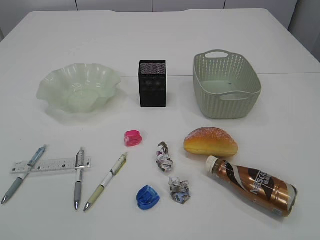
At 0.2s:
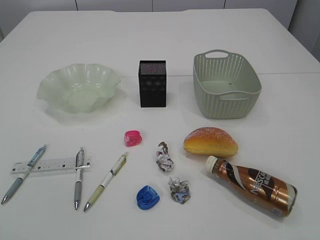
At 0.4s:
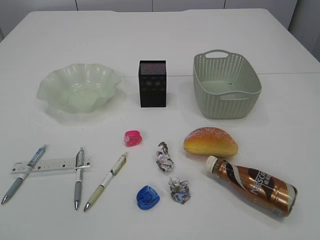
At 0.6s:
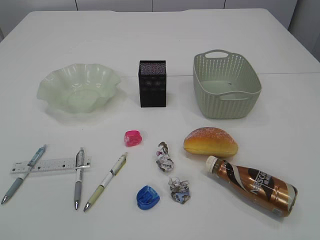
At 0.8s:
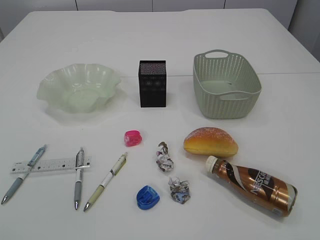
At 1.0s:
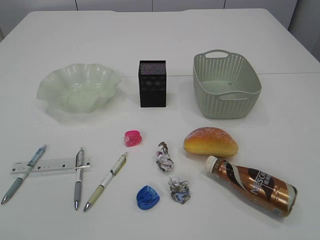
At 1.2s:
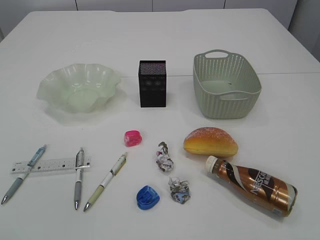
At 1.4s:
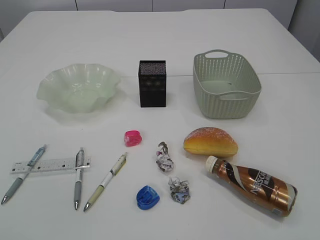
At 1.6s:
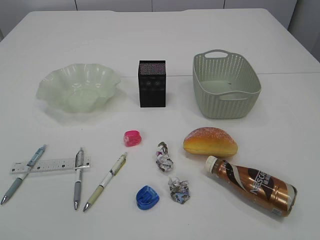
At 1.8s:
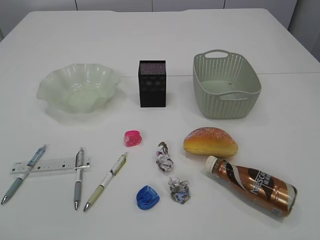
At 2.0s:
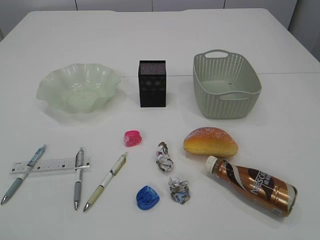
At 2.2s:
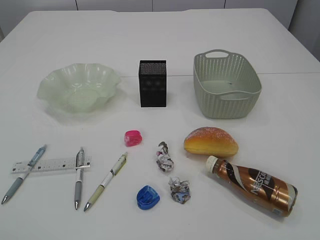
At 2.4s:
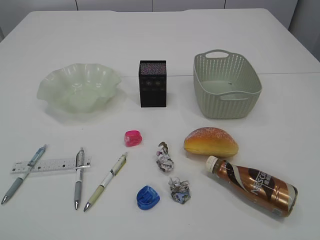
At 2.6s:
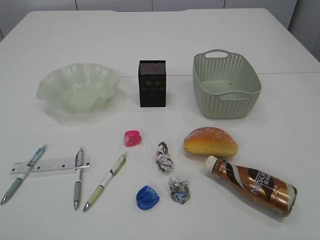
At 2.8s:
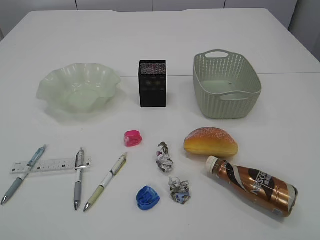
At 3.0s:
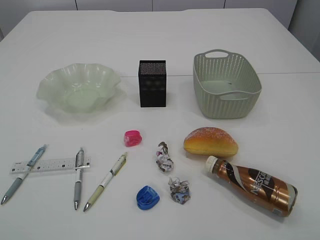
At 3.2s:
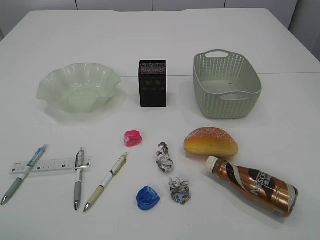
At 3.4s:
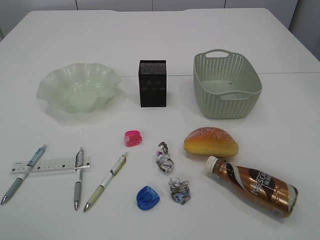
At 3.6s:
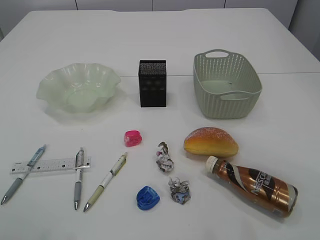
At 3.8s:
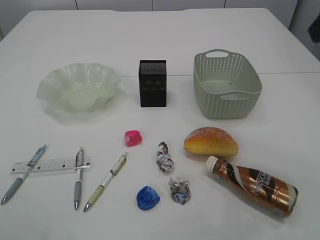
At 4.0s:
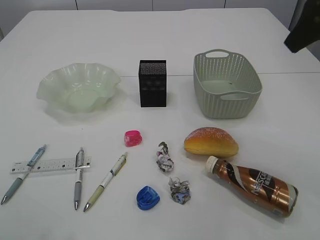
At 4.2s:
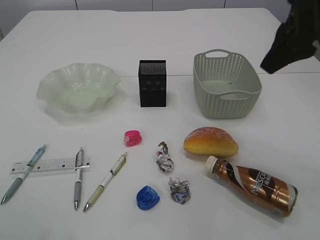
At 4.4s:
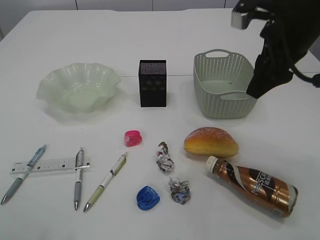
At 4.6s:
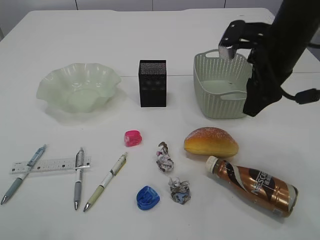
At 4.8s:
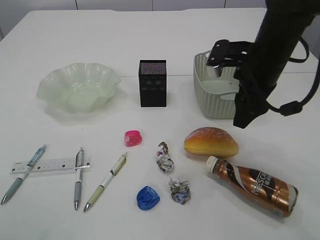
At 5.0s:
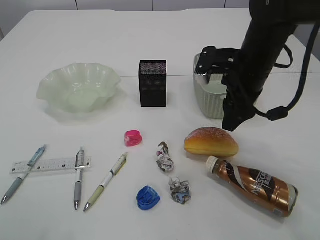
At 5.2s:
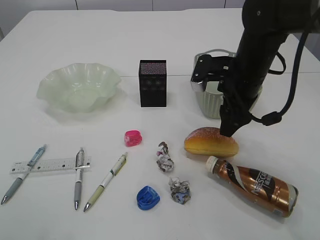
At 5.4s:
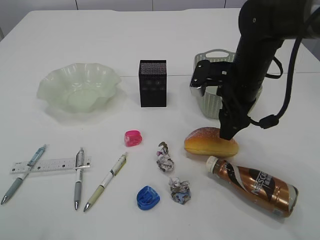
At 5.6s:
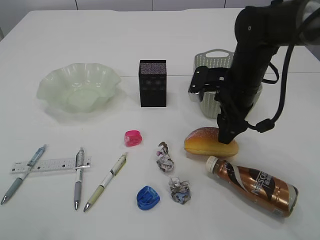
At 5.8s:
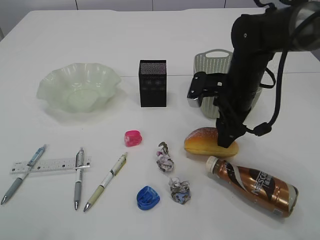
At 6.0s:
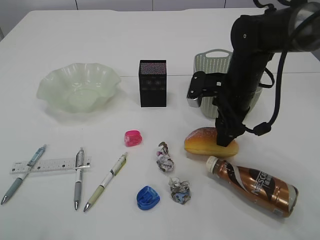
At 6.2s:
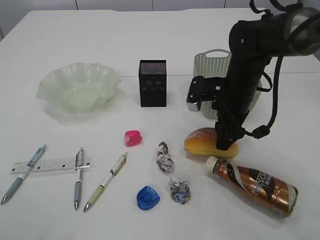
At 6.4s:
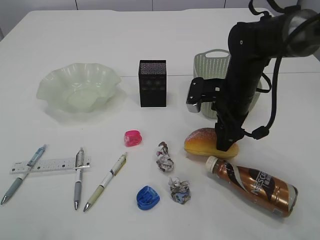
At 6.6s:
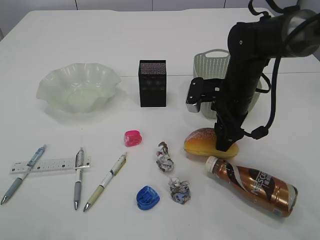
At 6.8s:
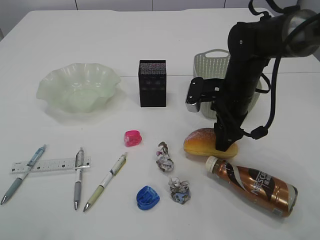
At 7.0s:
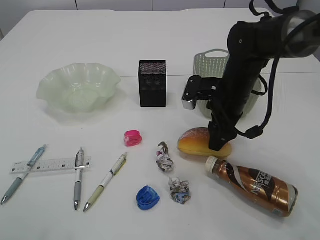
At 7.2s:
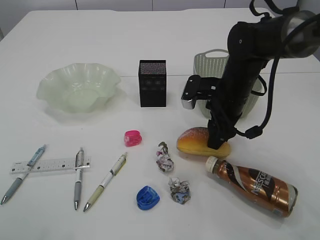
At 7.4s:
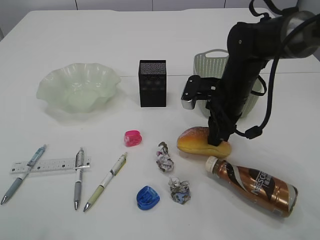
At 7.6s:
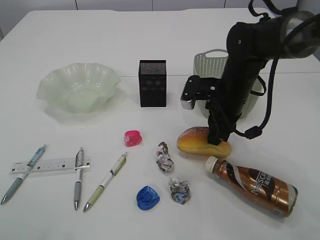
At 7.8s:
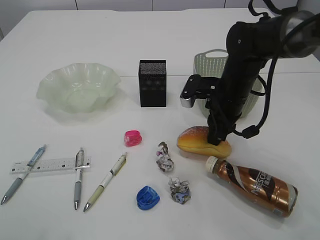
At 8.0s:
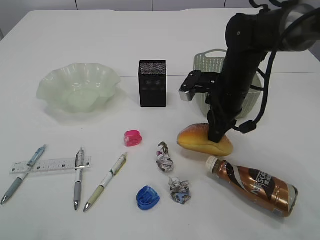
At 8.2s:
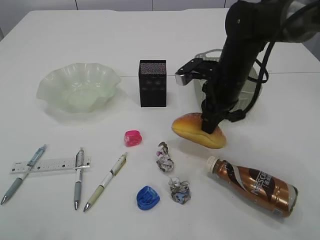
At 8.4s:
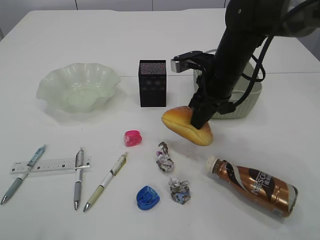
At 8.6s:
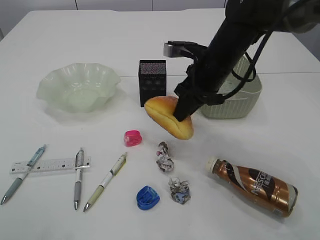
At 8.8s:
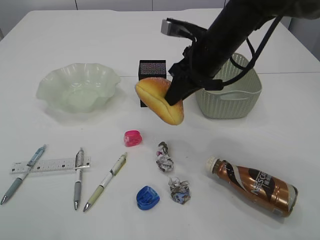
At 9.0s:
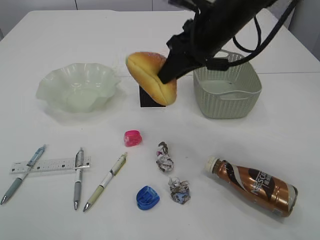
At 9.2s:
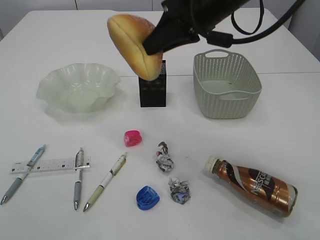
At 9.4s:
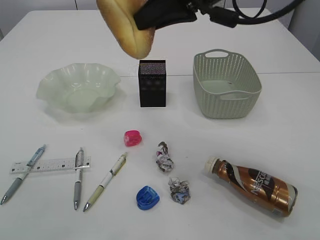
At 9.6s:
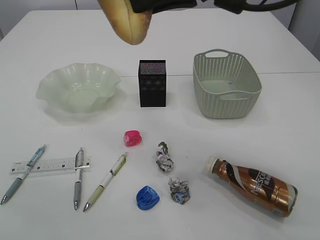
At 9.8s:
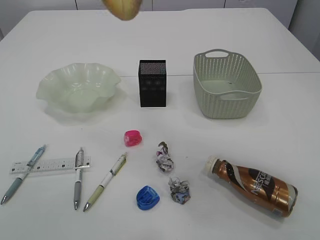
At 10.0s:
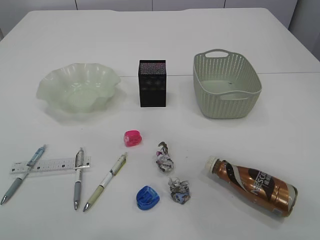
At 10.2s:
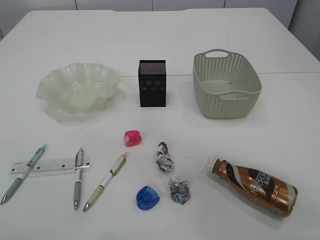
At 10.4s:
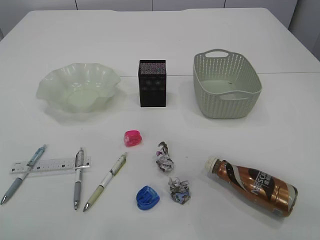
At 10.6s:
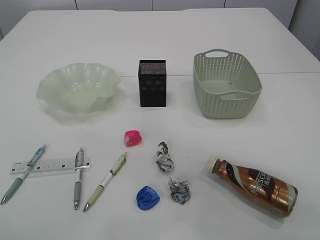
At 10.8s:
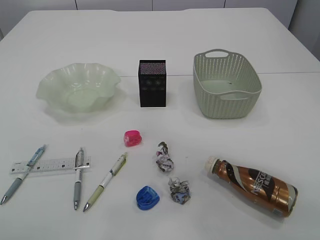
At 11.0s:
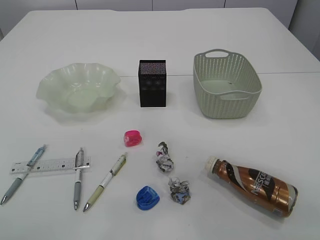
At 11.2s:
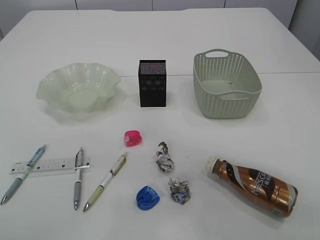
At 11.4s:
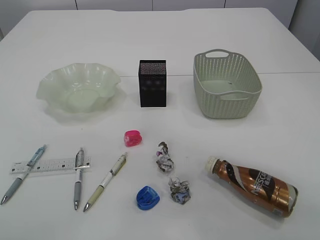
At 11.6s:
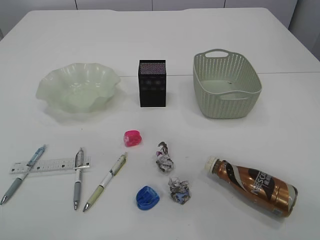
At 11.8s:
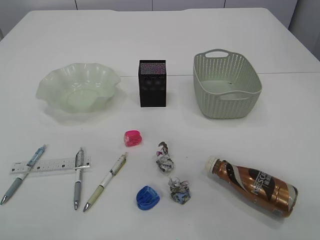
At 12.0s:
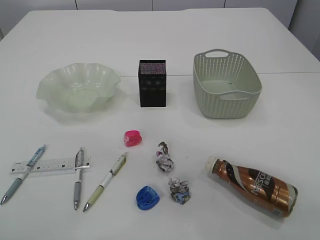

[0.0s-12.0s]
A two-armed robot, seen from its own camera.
3.0s to 4.4s: The right gripper heads forward, covering approximately 25 cm.
4.4s to 6.0s: The right gripper goes approximately 15 cm downward.
6.0s to 7.6s: The right gripper closes up.
7.6s to 9.0s: The right gripper moves upward, about 15 cm.
9.0s to 10.4s: The right gripper shifts approximately 20 cm upward and backward; the left gripper shifts by some 5 cm, and opens up.

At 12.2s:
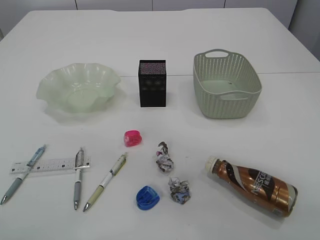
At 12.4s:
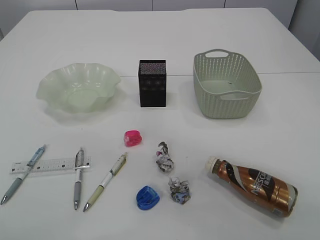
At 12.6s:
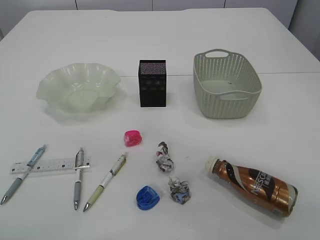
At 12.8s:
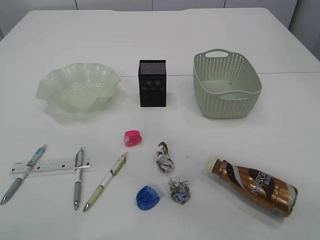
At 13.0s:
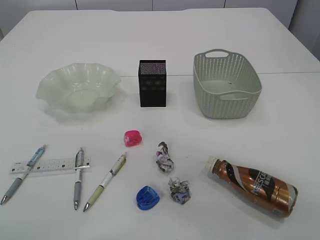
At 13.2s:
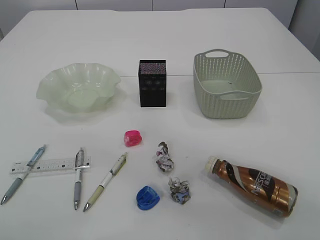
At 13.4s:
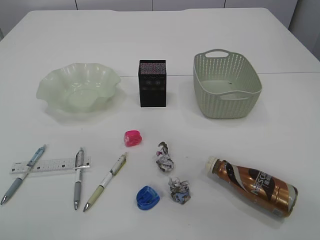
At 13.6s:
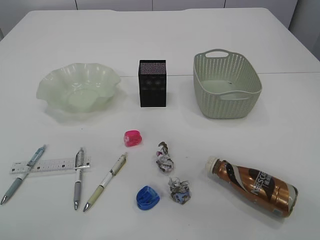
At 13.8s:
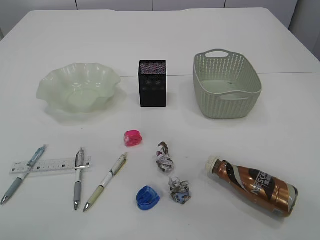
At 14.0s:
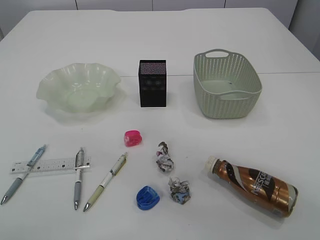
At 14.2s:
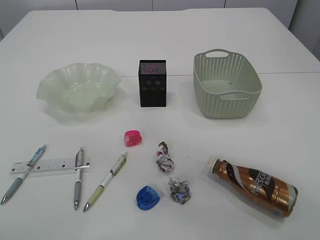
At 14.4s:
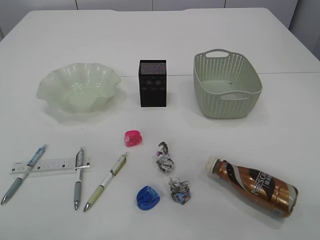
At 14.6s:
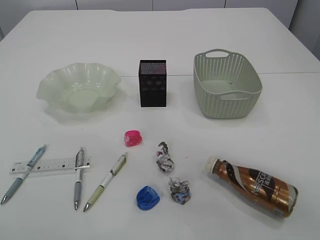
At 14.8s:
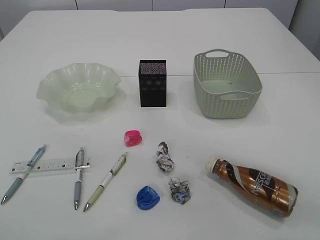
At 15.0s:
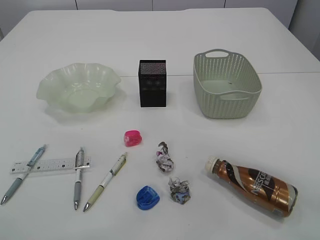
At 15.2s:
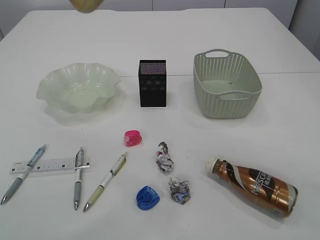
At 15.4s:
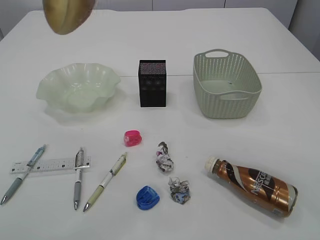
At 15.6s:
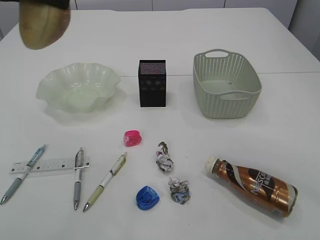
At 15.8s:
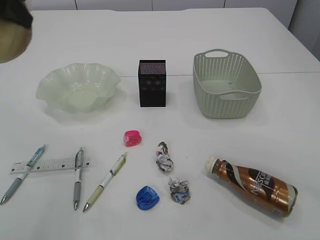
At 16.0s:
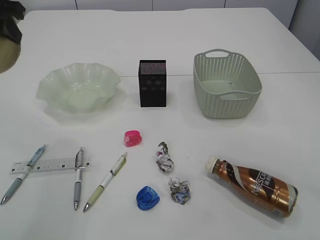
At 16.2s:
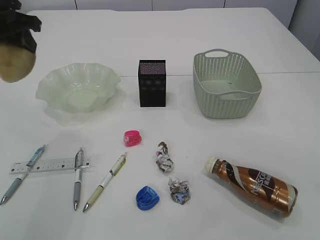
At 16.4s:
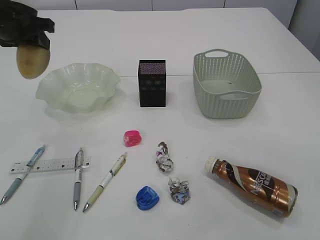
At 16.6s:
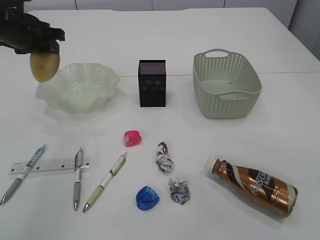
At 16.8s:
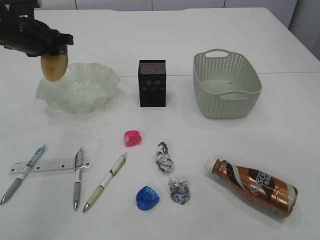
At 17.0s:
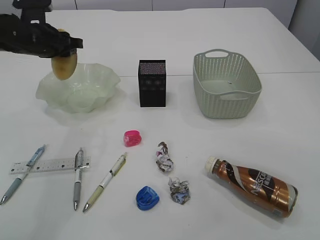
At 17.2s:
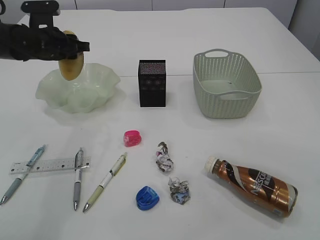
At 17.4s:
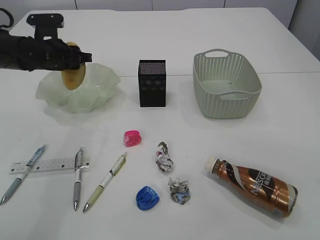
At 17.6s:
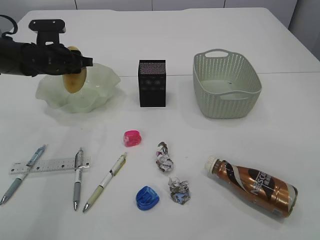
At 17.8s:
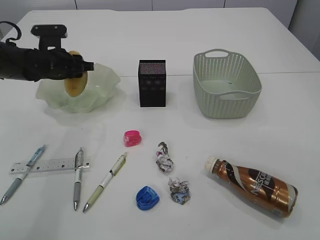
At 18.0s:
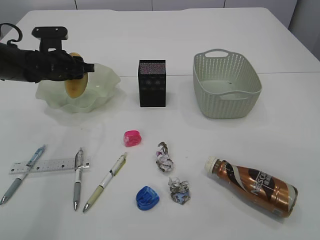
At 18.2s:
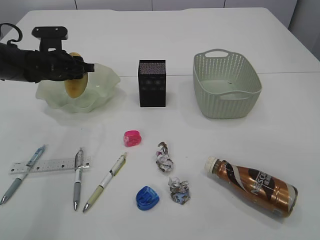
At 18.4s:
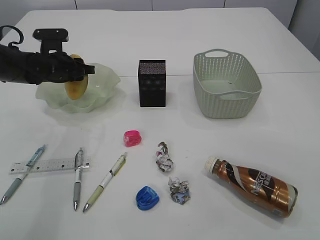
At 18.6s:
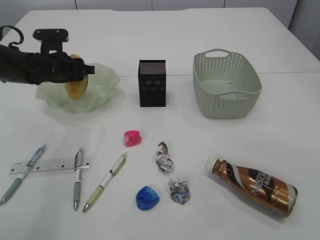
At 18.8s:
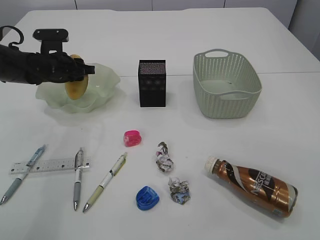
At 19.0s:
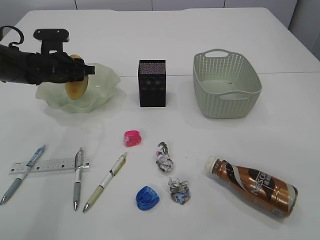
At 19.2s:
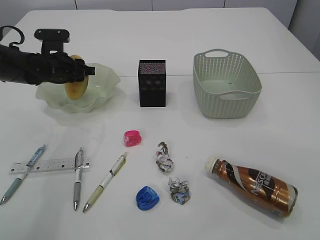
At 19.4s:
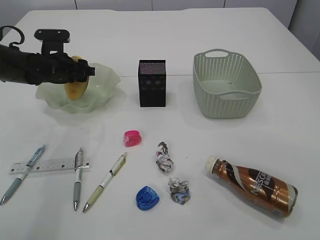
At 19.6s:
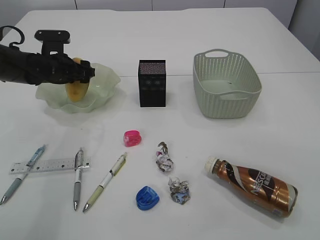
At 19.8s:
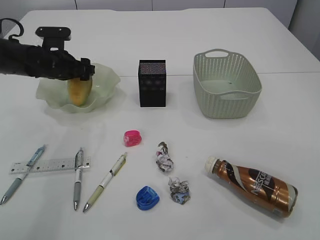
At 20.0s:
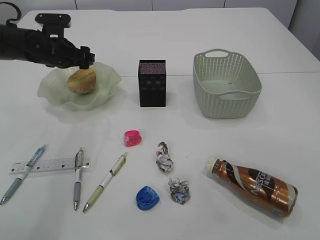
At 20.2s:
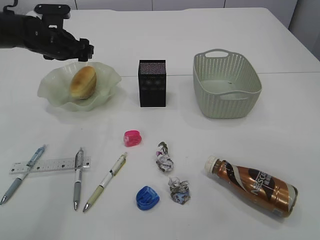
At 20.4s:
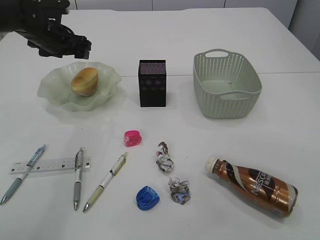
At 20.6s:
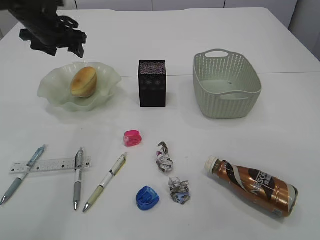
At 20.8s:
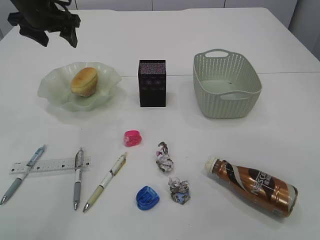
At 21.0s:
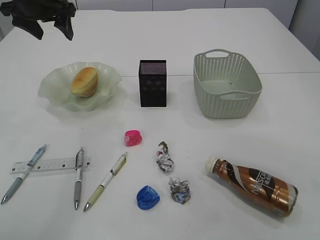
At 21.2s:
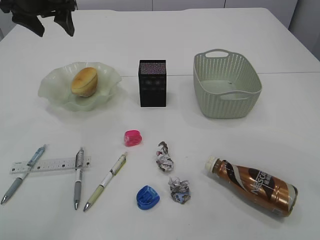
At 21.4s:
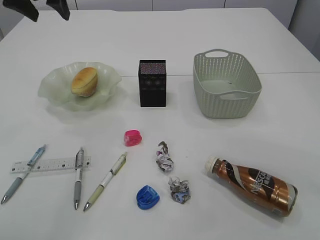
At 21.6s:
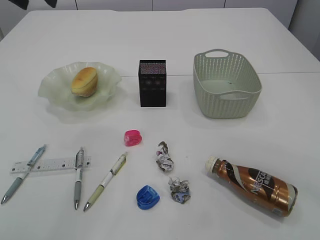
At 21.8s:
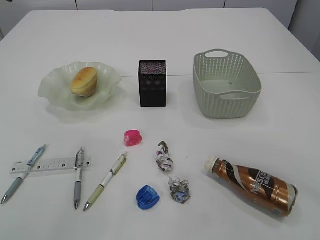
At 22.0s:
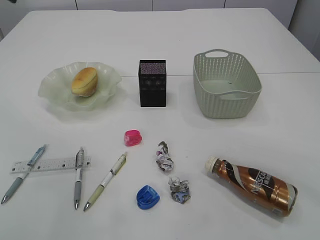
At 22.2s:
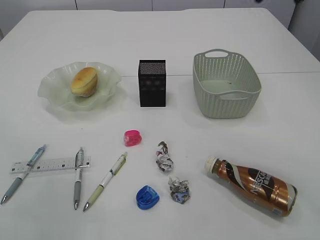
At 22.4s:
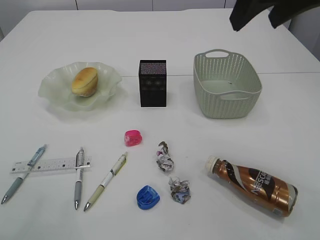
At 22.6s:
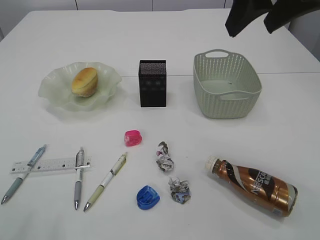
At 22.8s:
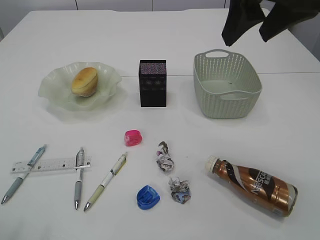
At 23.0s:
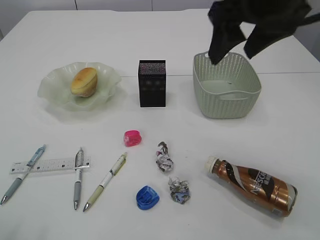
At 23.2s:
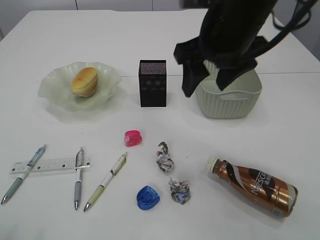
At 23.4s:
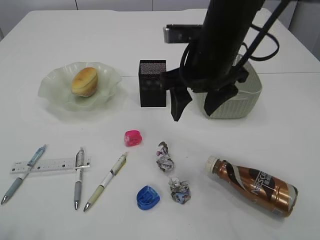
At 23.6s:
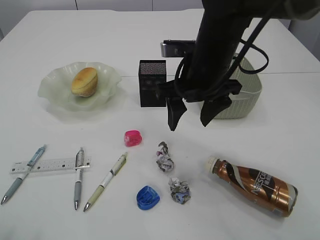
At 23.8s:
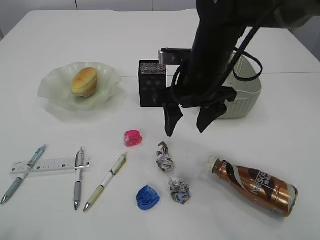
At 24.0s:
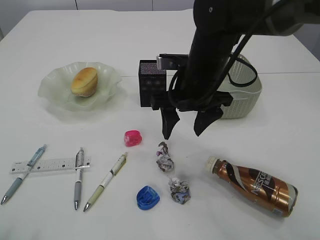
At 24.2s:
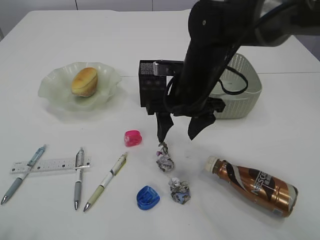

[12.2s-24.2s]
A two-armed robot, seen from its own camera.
Step, 12.2s to 15.6s: Hand over the bread.
Step, 15.8s to 20.8s: place the bread in the plate.
15.2s to 16.6s: The left gripper heads downward, forward and to the left, covering approximately 20 cm.
16.6s to 18.2s: The left gripper is displaced downward by roughly 10 cm.
18.2s to 19.8s: The left gripper opens up.
19.8s to 21.2s: The left gripper goes some 15 cm upward.
21.2s to 22.6s: The left gripper is displaced backward by some 30 cm, and closes, while the right gripper goes some 5 cm to the left.
22.6s to 24.2s: The right gripper is displaced downward and to the left by about 20 cm. Meanwhile the left gripper shifts about 5 cm downward.
